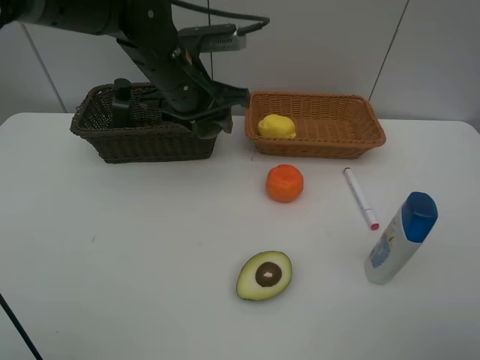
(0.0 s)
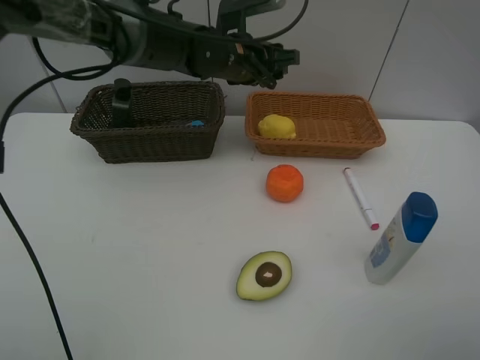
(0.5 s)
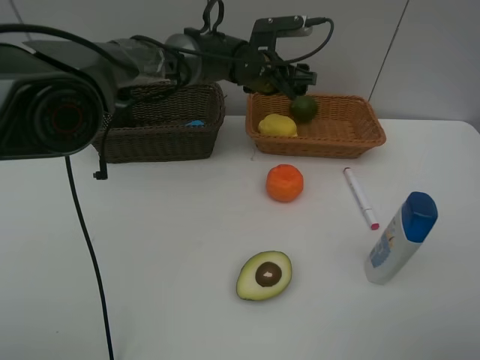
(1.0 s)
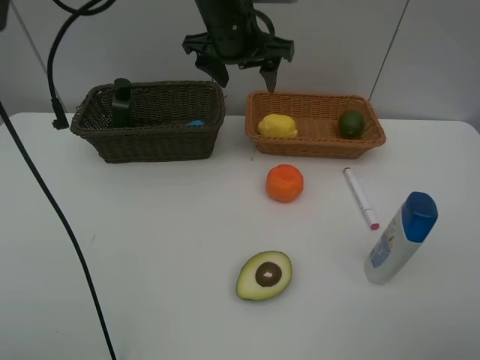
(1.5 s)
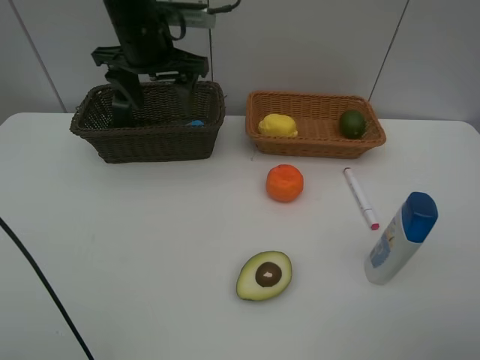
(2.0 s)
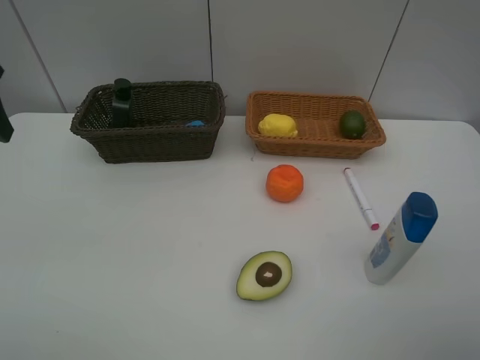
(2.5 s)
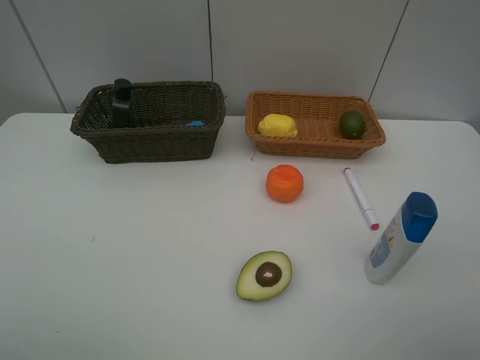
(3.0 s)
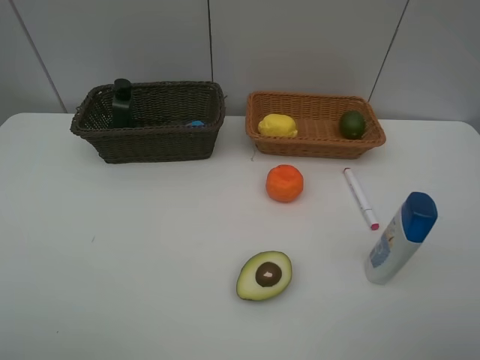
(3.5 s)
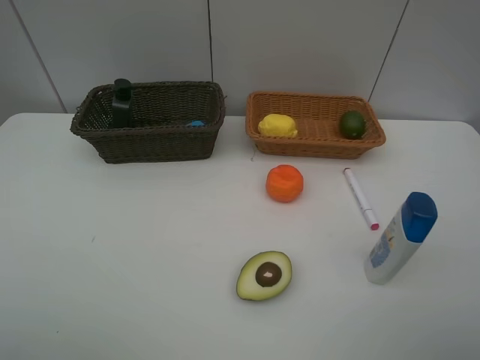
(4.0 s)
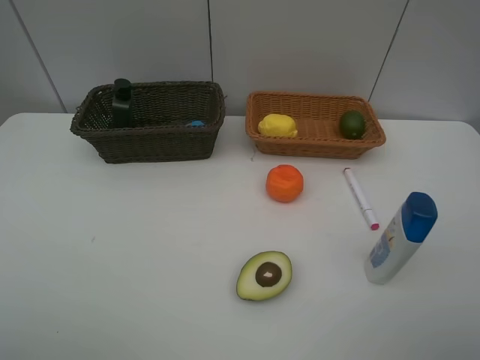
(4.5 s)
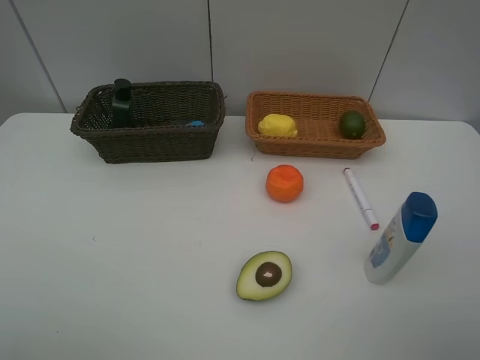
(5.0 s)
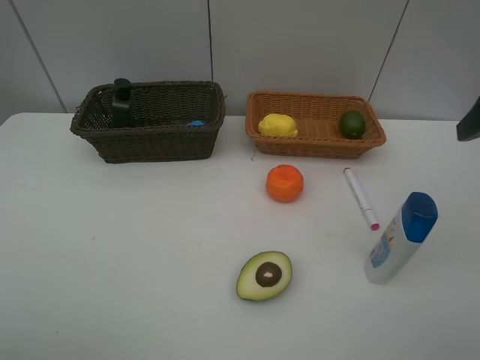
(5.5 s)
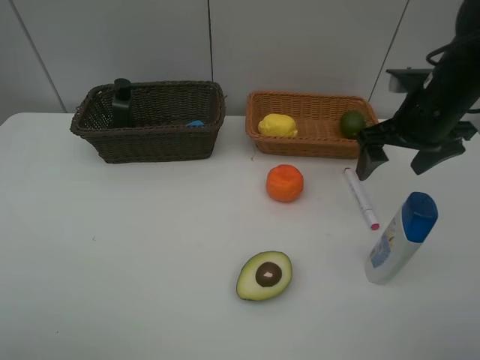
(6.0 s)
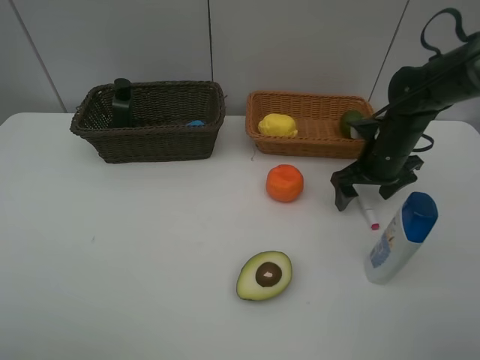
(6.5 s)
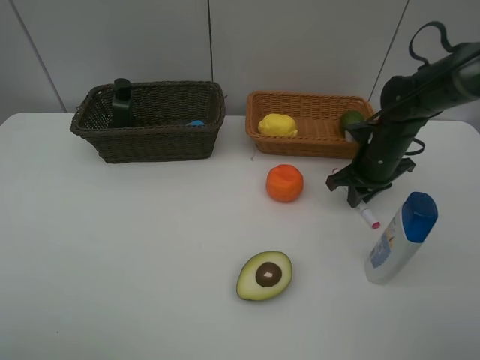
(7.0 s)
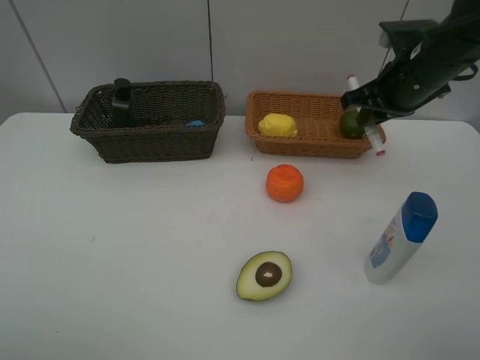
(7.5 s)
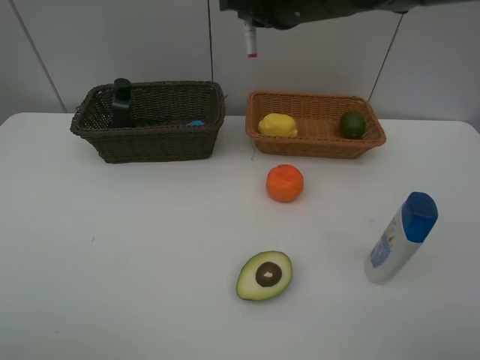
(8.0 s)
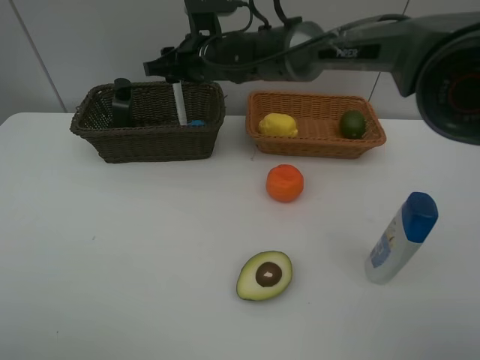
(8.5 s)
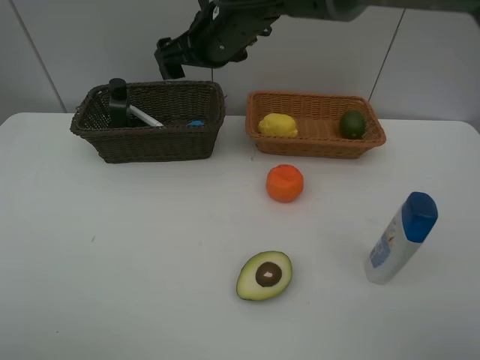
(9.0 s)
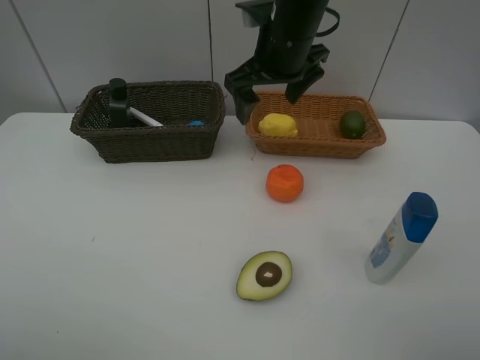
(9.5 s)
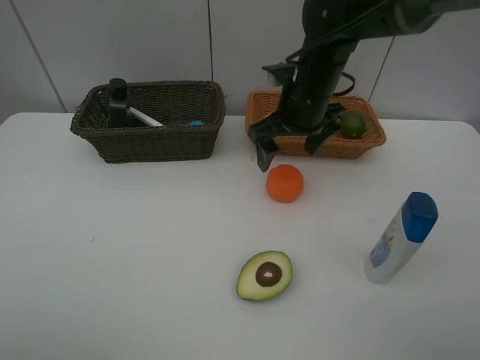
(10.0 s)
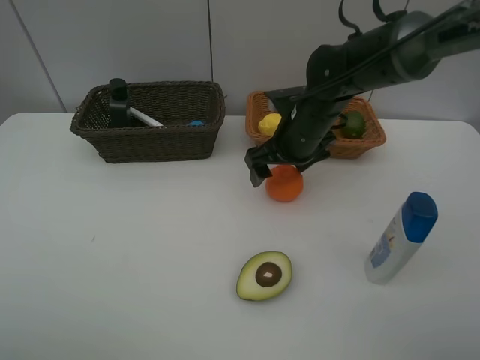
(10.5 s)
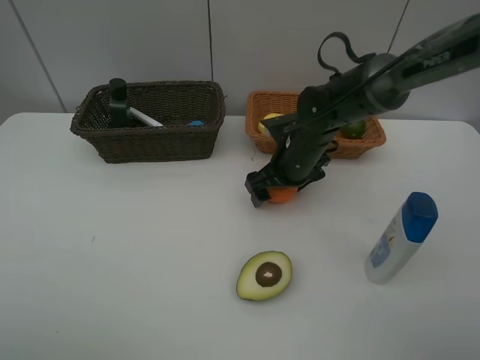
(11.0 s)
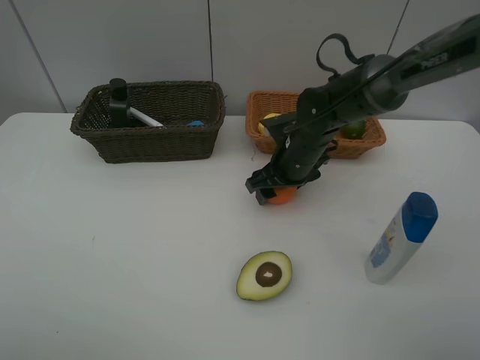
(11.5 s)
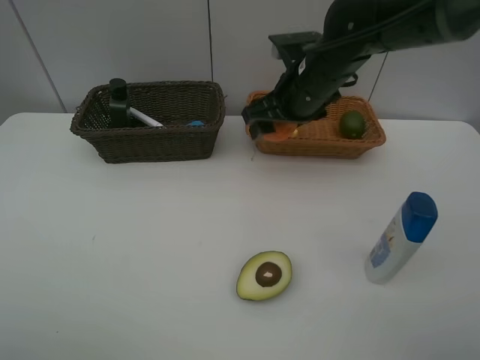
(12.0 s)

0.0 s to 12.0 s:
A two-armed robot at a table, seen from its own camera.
Task of the whole recording: Place multiple objects separately in different baskets.
Step, 0.0 to 1.0 s: Place the lime in the light basket with left gripper.
Step, 1.5 to 7.0 s: Pick up the red marker with right gripper.
Step, 7.5 to 8.5 s: Place the red marker in the dark basket with right gripper.
Step, 9.0 to 11.5 s: Pick up the orange with right gripper.
0.0 to 2.0 s: The left gripper goes approximately 5 cm to the left, and opens up.
2.0 to 4.0 s: The left gripper heads backward and to the left, covering approximately 40 cm.
4.0 to 6.0 s: The right gripper travels forward by approximately 30 cm.
6.0 to 8.0 s: The right gripper goes roughly 20 cm to the left and upward, and closes.
8.0 to 10.0 s: The right gripper travels downward by some 10 cm, moves approximately 10 cm to the left and comes back, and opens up.
10.0 to 12.0 s: The right gripper goes downward and returns, roughly 10 cm each way.

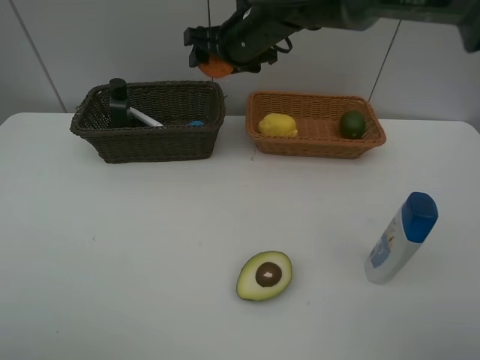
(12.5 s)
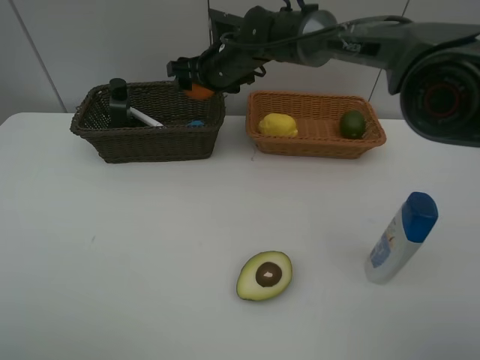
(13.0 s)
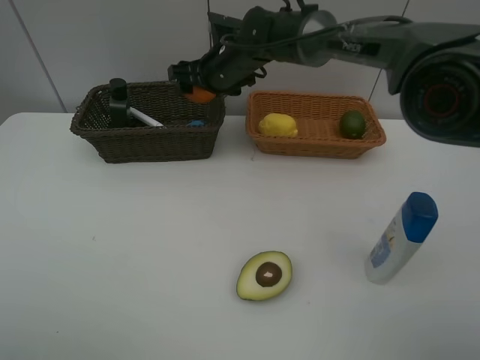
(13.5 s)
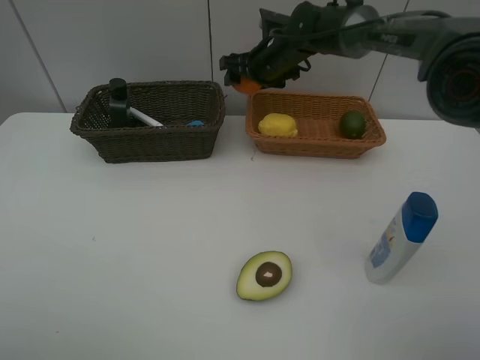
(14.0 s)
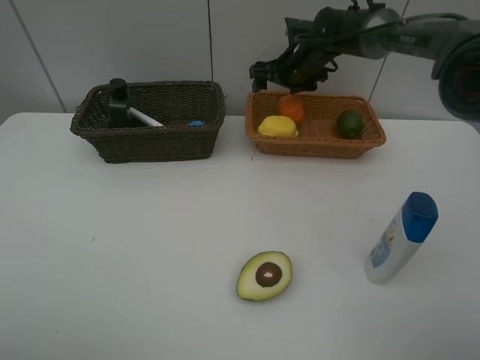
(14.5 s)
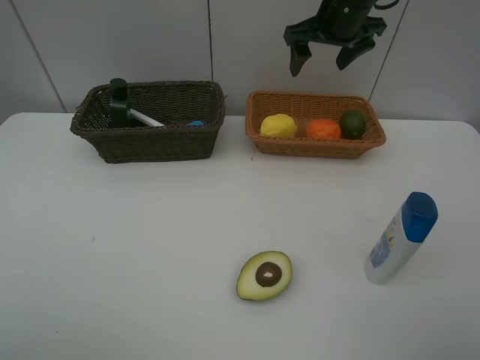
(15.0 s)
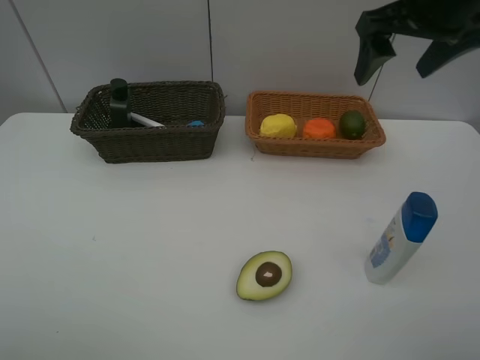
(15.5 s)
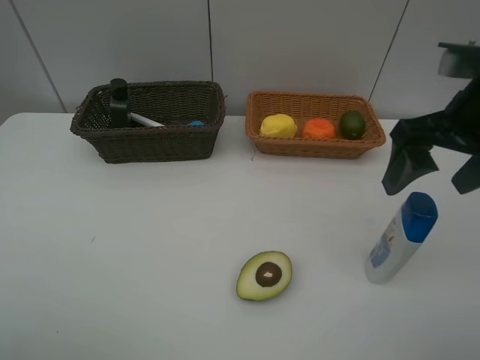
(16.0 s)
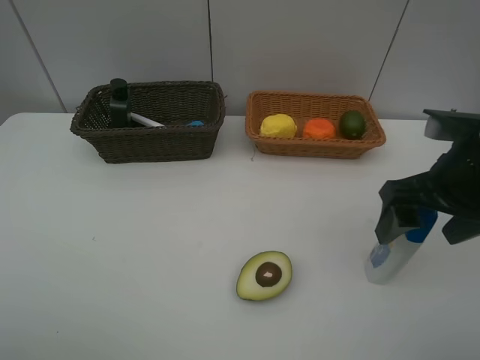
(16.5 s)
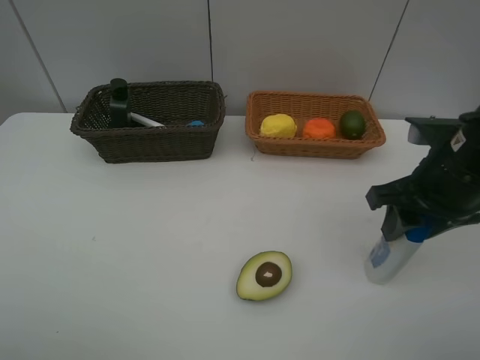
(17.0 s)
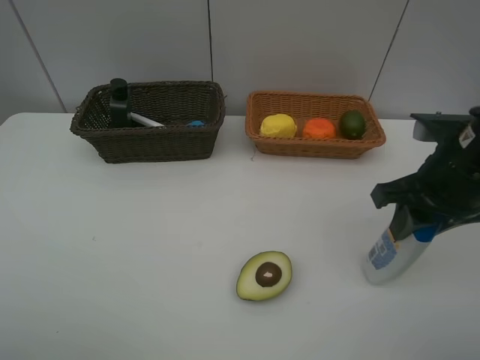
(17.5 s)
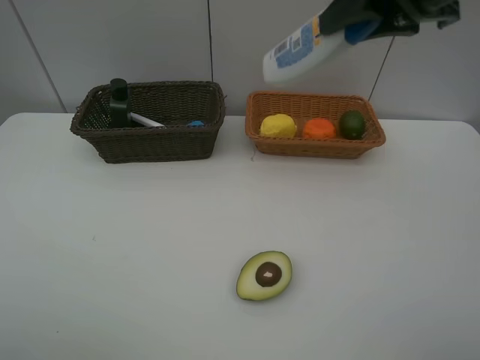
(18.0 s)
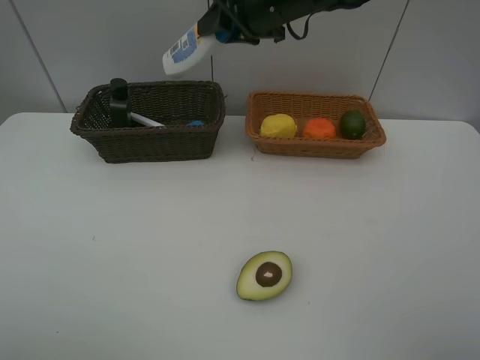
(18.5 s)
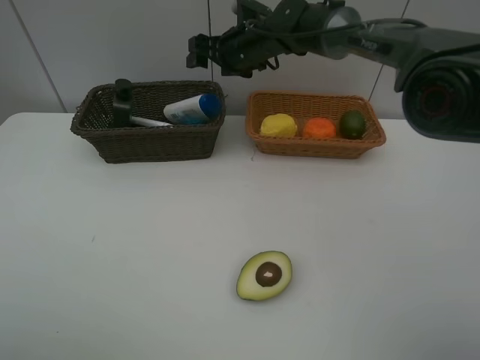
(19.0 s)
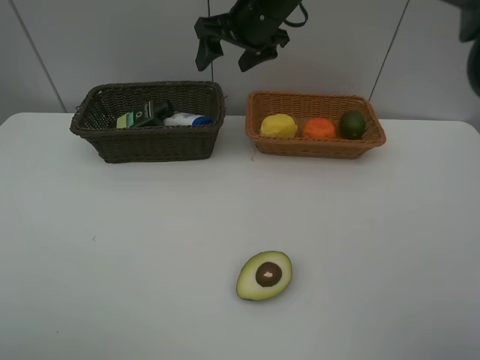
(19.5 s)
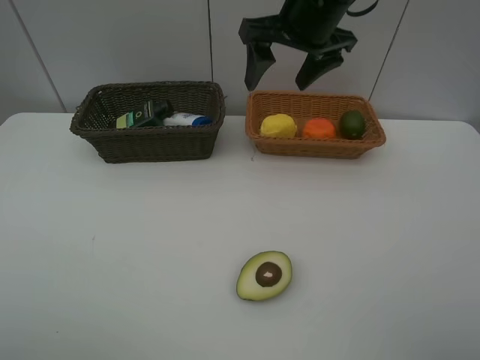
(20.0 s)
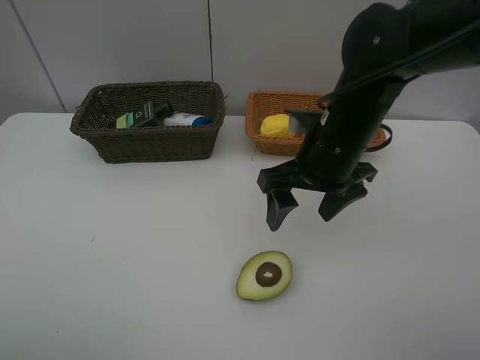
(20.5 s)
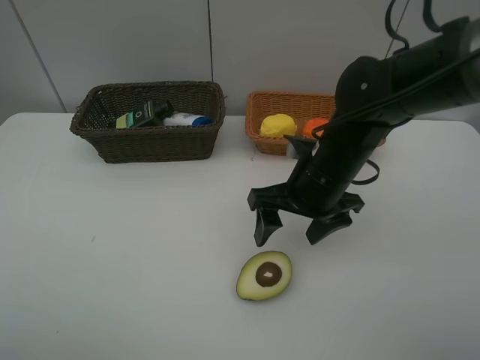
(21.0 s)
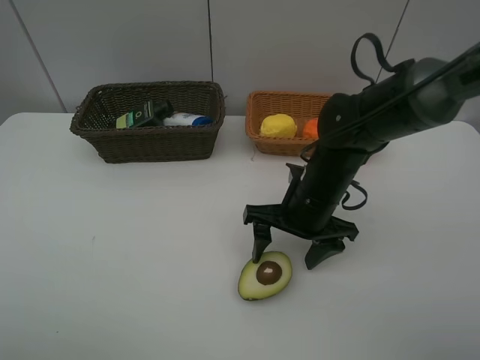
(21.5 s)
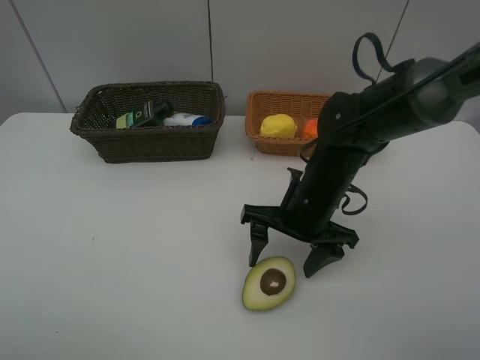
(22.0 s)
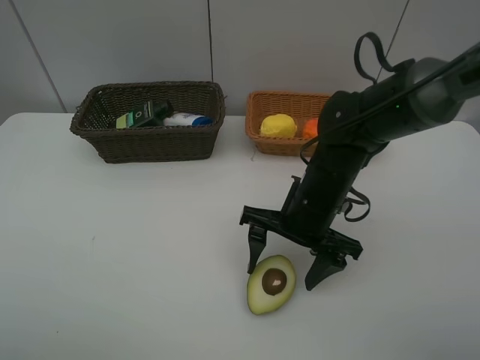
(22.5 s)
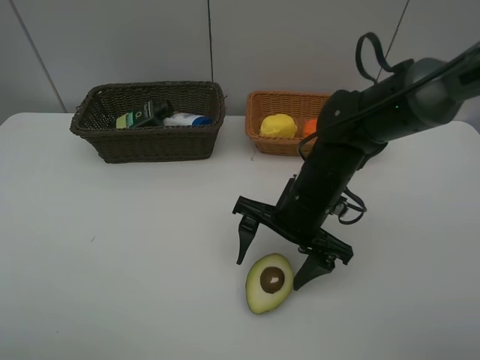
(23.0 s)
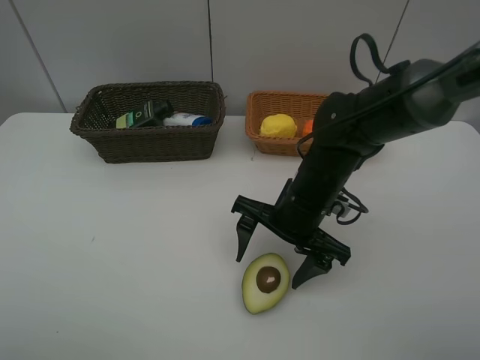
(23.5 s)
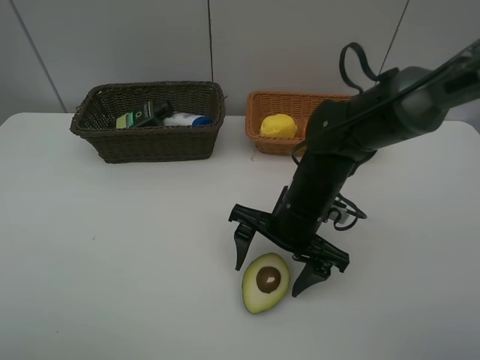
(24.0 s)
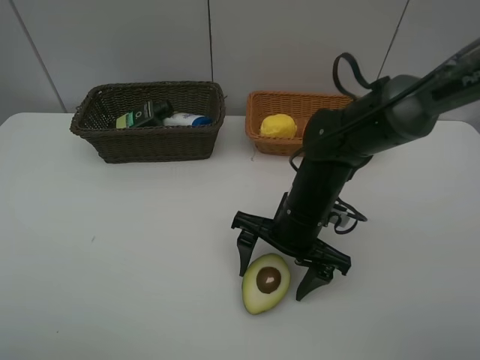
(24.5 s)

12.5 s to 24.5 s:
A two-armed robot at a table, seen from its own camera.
Task of the whole recording: Place multiple objects separately in different baskets.
Step, 12.5 to 14.5 s: Place the orange in the light basket with right gripper.
Step, 15.0 to 17.5 s: Pick up the shampoo with right gripper.
12.5 to 14.5 s: The right gripper goes about 15 cm to the right, forward and downward.
14.5 to 16.5 s: The right gripper shifts about 30 cm backward.
16.5 to 18.5 s: The right gripper is displaced forward and to the left by roughly 30 cm, and closes up.
18.5 to 20.5 s: The right gripper shifts about 20 cm backward and downward, and opens its fingers.
20.5 to 22.5 s: The right gripper moves downward, approximately 10 cm.
22.5 to 24.5 s: The grippers stay close to where they were, moving slightly.

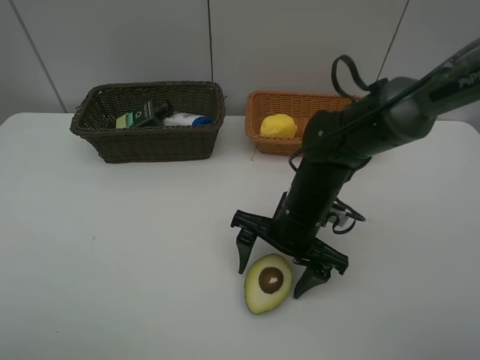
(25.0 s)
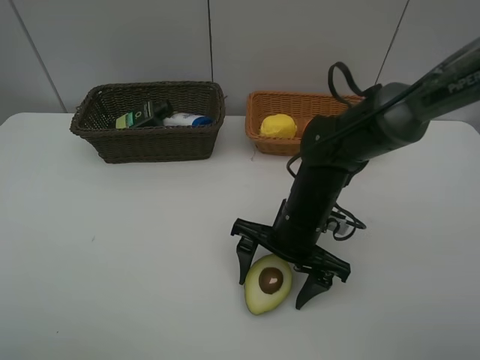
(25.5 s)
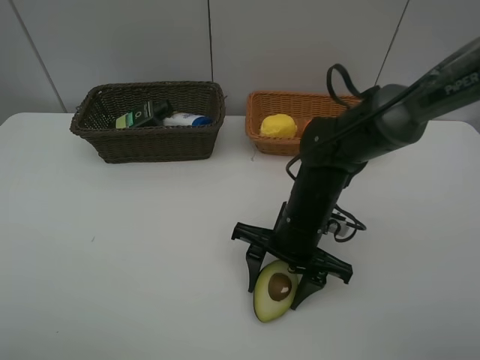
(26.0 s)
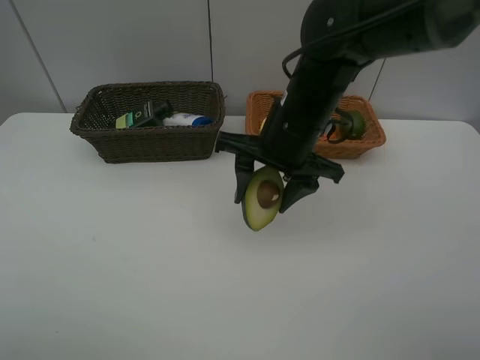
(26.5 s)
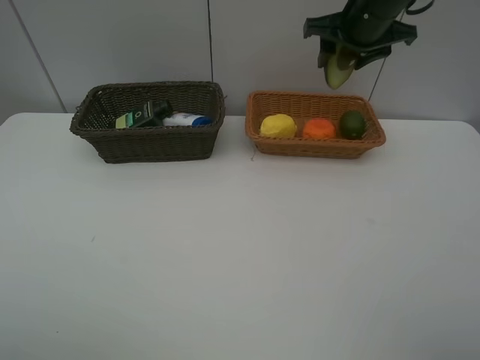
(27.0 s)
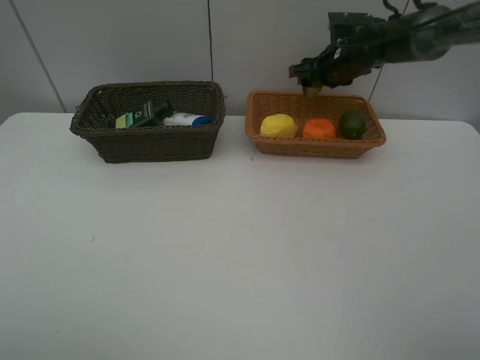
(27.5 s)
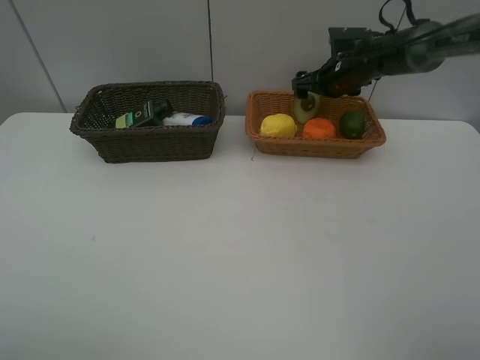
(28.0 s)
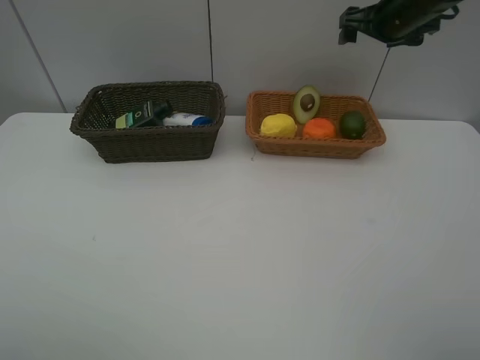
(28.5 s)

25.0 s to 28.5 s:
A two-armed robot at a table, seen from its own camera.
Task of the whole recording: Place multiple objects separately in different baskets.
Step, 26.5 to 28.0 s: Place the avocado in the light basket with right gripper.
25.0 to 27.0 s: The right gripper goes roughly 30 cm forward, upward and to the right.
27.0 to 28.5 s: The right gripper is displaced to the right by some 5 cm, goes downward and returns, roughly 10 cm each way, and opens up.
